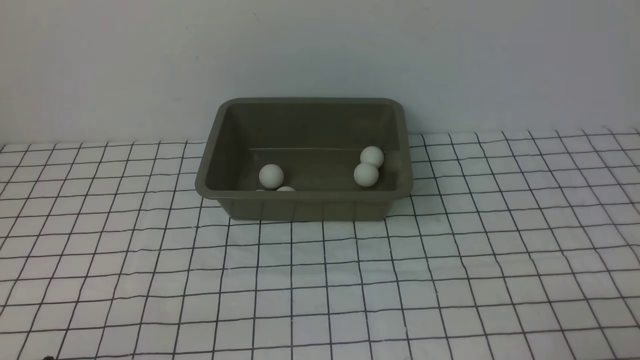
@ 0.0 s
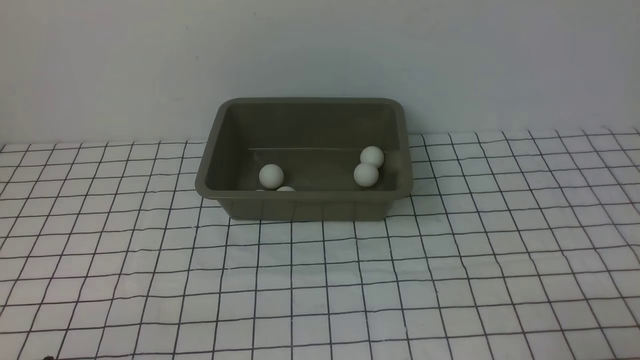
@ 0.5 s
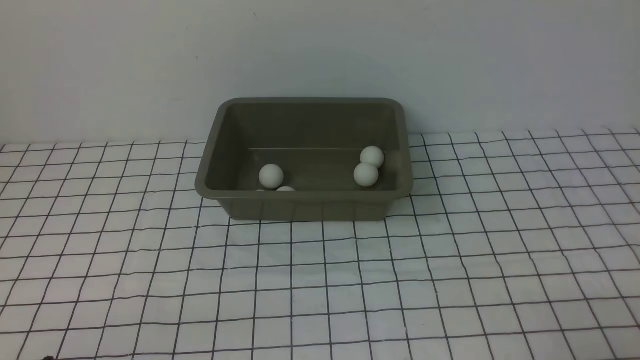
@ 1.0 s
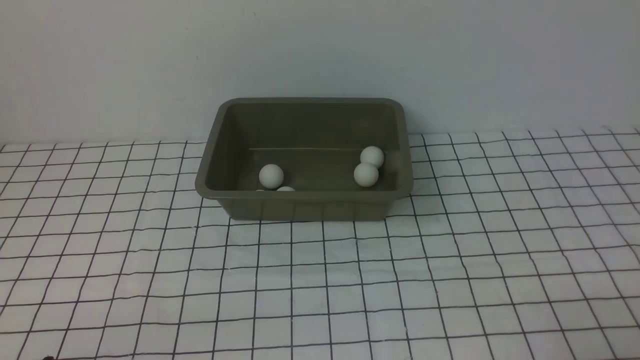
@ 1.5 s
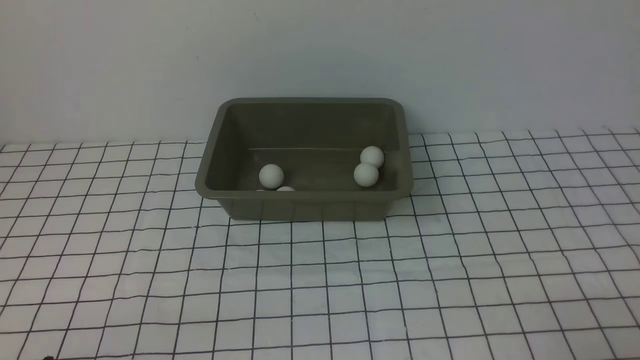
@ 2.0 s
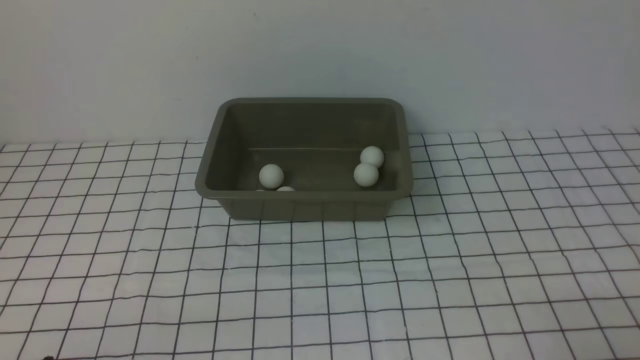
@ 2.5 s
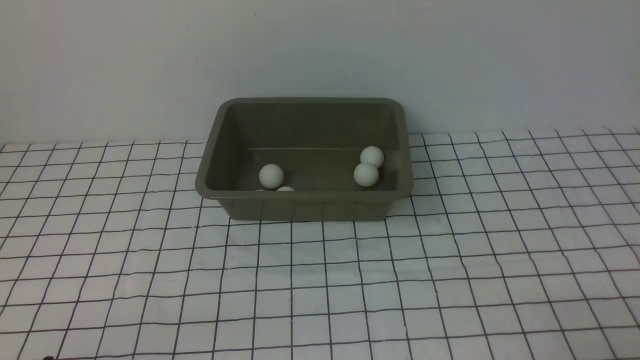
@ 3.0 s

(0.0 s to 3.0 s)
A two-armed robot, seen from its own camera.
0.0 s - 3.0 s: Both grippers stay about where they are.
